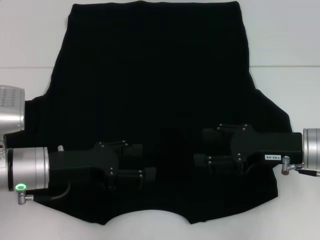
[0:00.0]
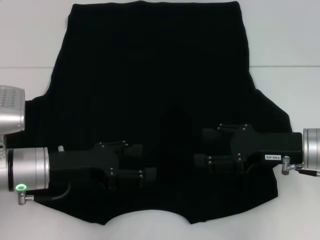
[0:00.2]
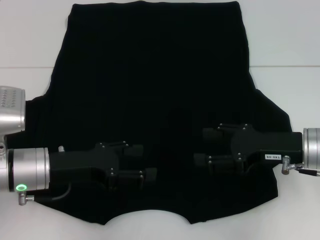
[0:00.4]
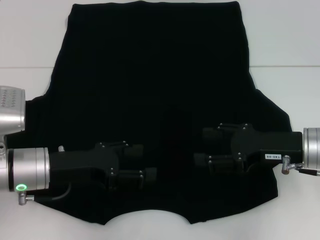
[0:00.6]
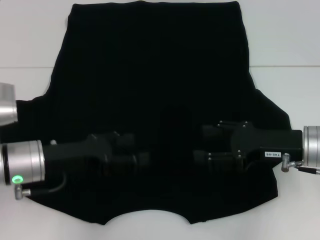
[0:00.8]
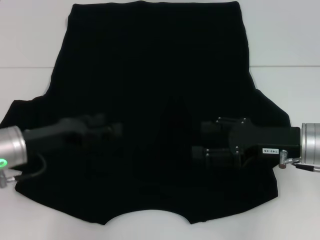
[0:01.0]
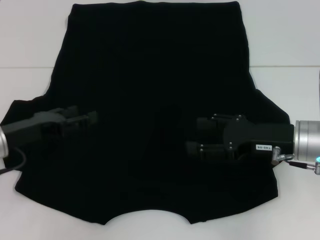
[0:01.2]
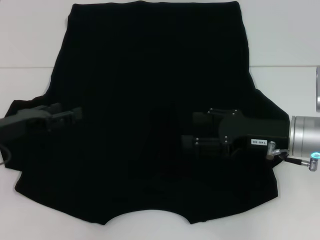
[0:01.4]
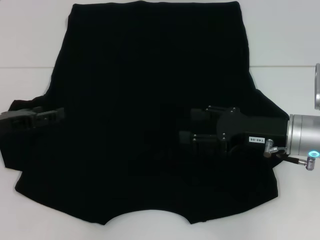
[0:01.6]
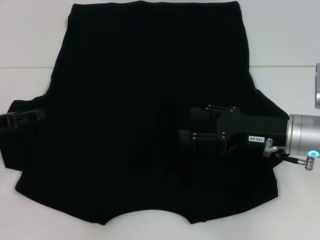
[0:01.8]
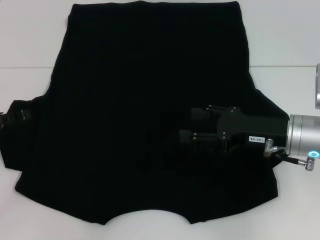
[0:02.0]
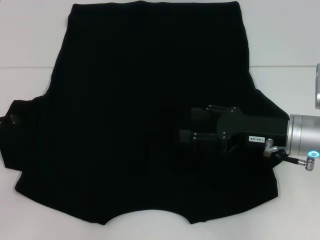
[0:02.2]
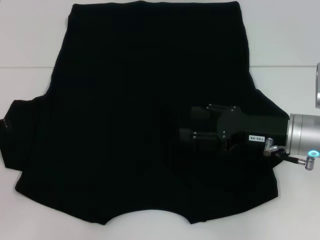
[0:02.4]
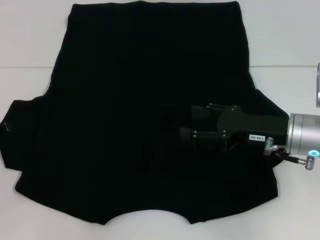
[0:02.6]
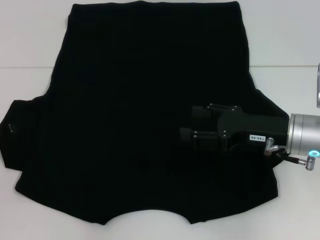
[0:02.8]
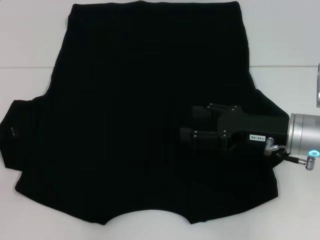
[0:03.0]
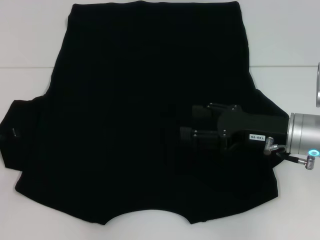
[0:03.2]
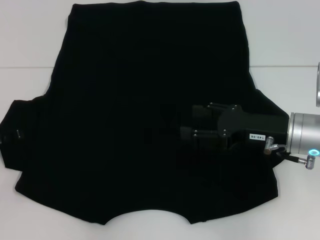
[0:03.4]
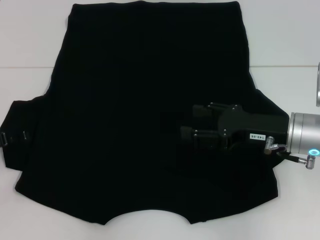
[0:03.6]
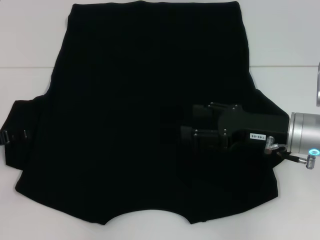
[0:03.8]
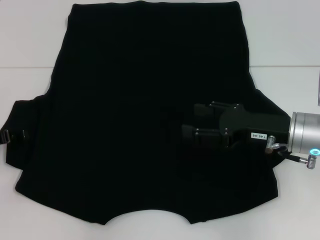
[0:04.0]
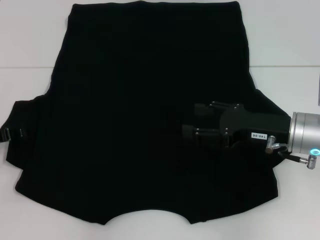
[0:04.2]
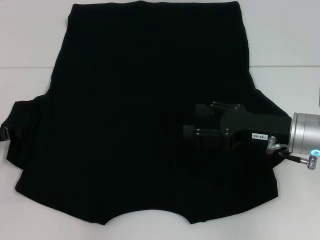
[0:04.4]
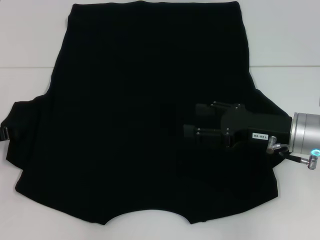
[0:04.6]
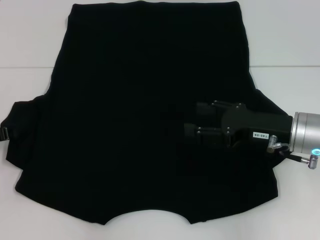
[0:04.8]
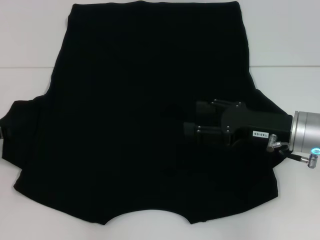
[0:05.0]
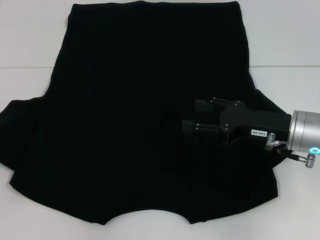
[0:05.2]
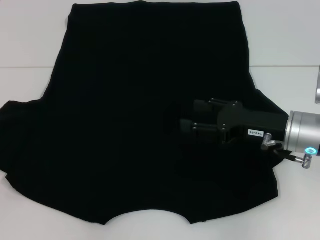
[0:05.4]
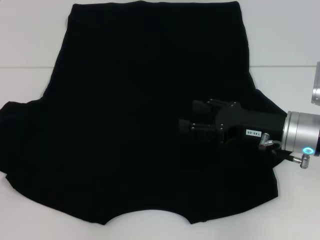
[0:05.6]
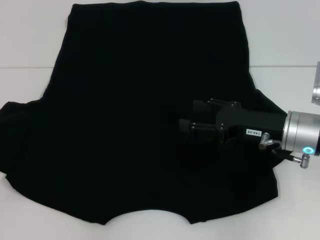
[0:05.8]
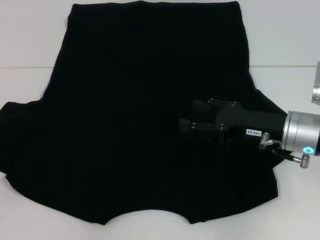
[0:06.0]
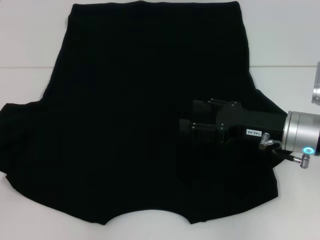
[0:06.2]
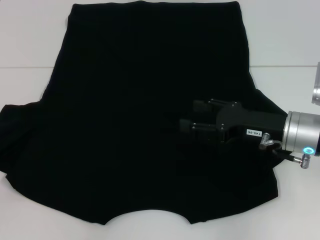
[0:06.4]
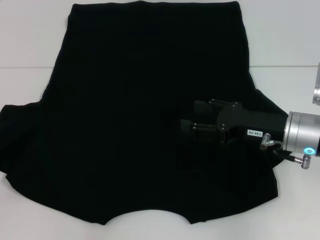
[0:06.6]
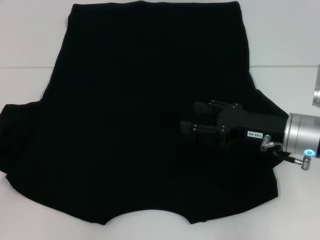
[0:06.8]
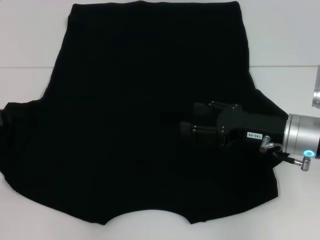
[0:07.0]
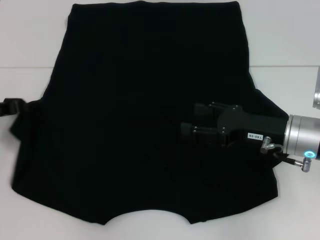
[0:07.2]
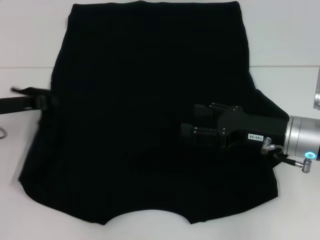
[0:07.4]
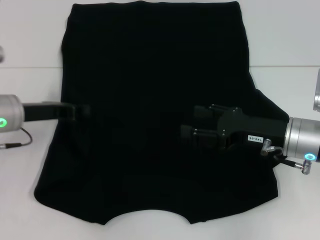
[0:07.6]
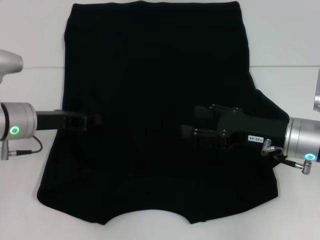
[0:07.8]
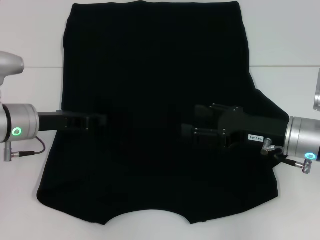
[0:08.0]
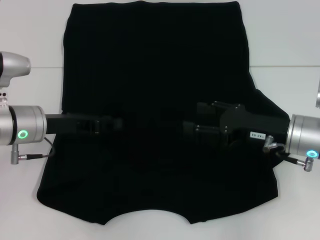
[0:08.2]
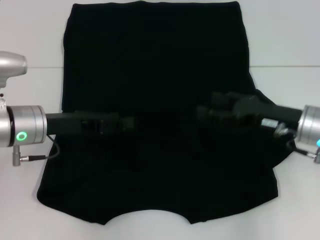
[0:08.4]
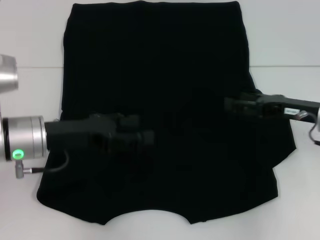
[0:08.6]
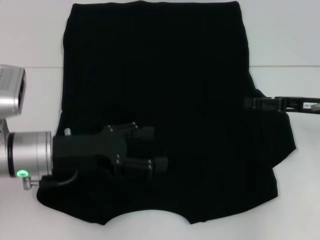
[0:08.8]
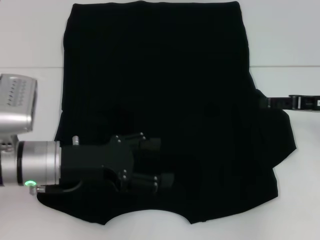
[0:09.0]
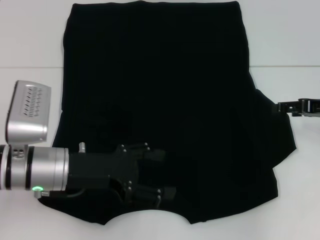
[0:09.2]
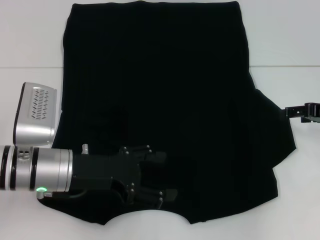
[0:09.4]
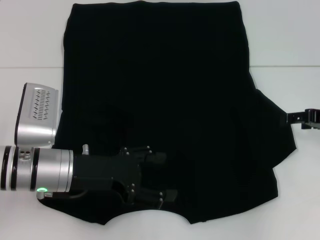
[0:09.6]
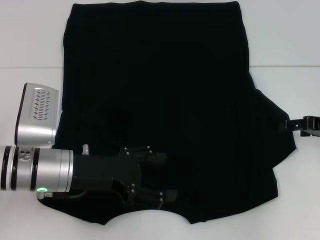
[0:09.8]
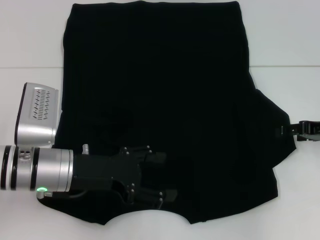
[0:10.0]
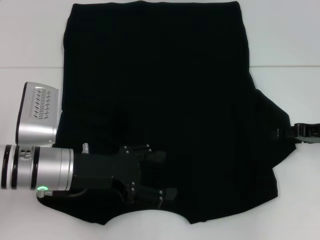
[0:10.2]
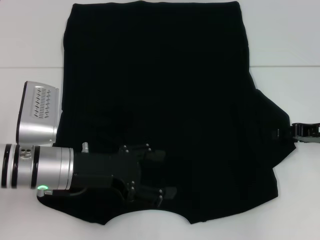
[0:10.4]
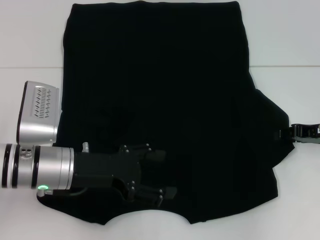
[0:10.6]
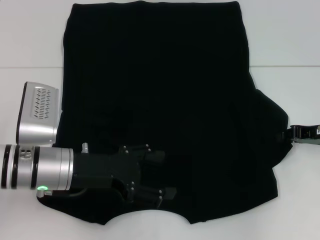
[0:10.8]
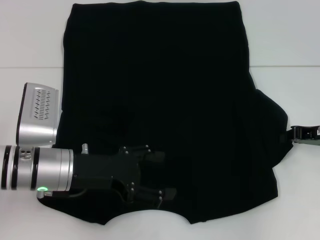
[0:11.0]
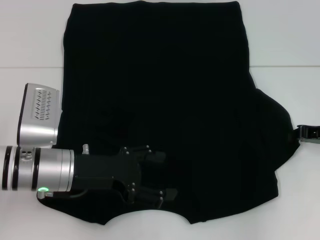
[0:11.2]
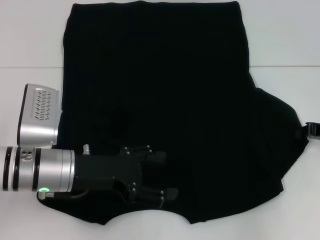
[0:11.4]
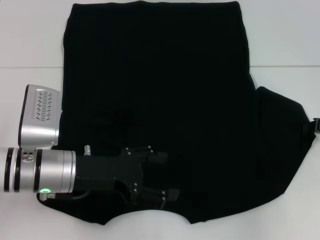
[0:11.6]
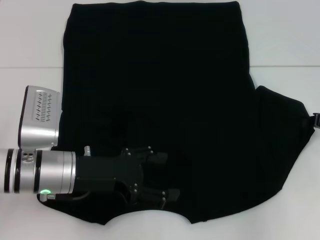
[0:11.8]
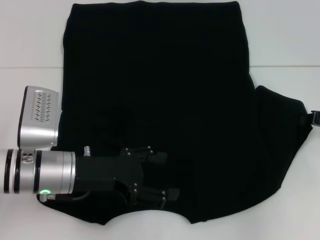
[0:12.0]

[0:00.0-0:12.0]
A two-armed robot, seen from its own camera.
Step, 0:00.0 to 0:07.8: Fold the bottom left sleeve with your left hand.
0:00.0 to 0:01.6: The left gripper moves to the left, some 10 cm.
0:03.0 to 0:04.4: The left gripper closes.
0:04.4 to 0:06.0: The left gripper closes.
0:06.0 to 0:07.6: The left gripper heads to the right, covering some 10 cm.
0:07.6 to 0:09.0: The right gripper heads to the right, covering some 10 cm. Meanwhile the left gripper heads backward and to the right, covering some 10 cm, and opens up.
0:09.0 to 0:10.4: The grippers make only small movements.
0:10.4 to 0:12.0: The right gripper closes.

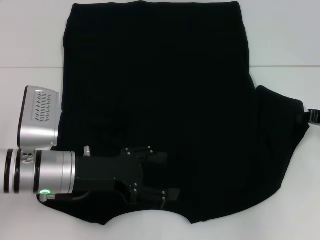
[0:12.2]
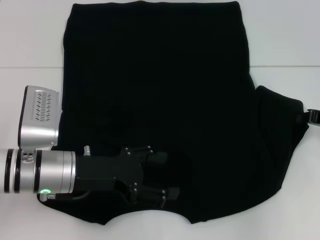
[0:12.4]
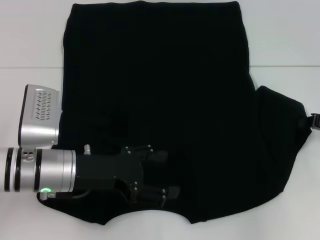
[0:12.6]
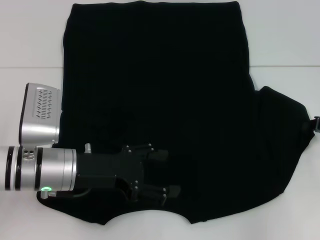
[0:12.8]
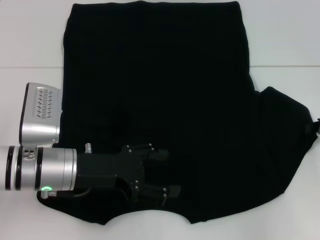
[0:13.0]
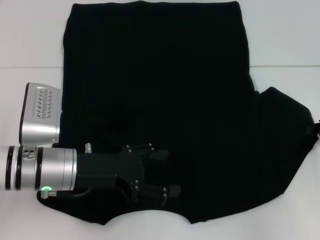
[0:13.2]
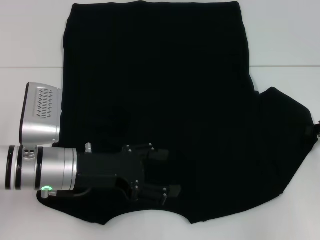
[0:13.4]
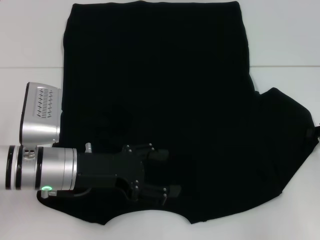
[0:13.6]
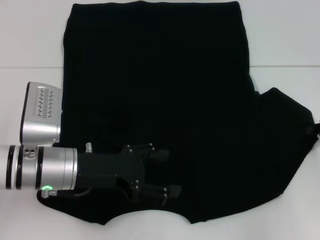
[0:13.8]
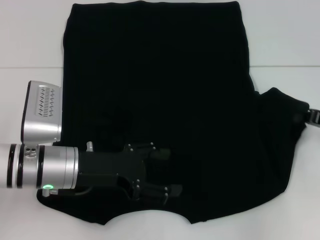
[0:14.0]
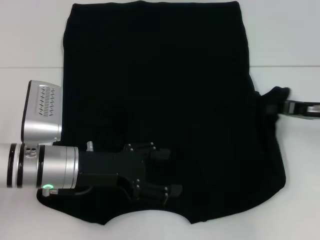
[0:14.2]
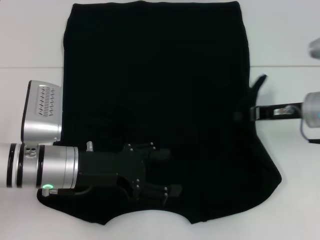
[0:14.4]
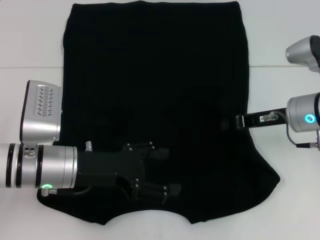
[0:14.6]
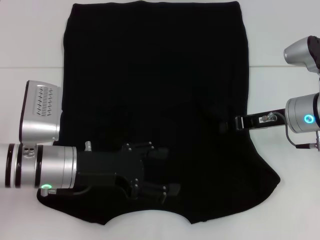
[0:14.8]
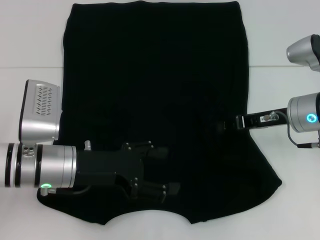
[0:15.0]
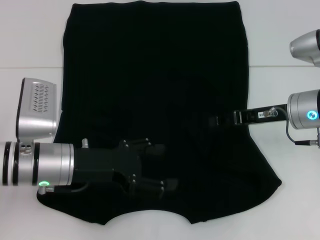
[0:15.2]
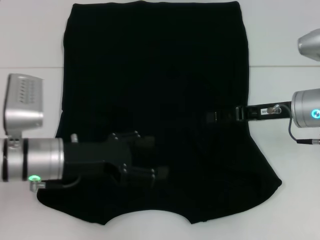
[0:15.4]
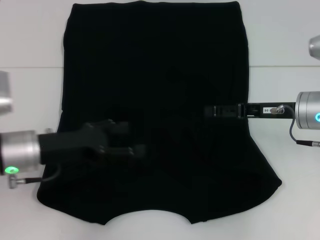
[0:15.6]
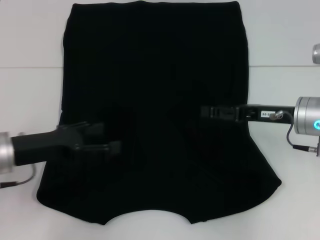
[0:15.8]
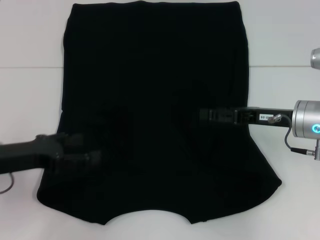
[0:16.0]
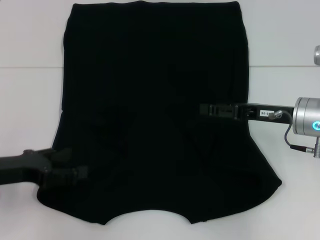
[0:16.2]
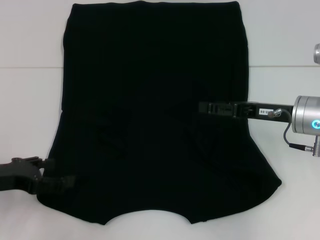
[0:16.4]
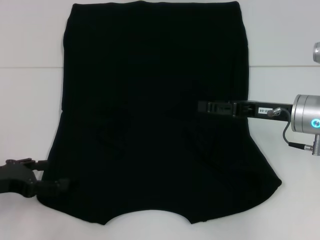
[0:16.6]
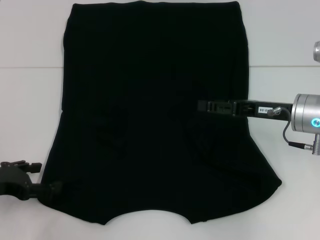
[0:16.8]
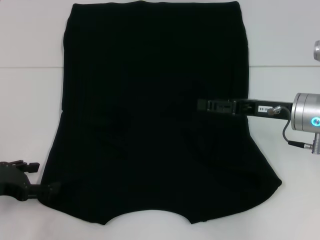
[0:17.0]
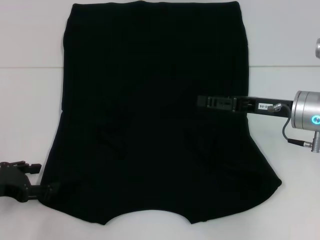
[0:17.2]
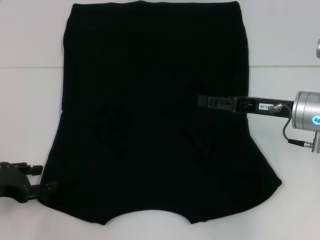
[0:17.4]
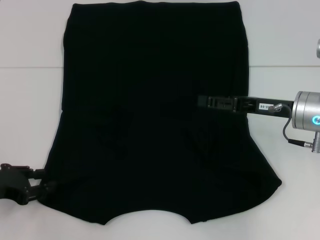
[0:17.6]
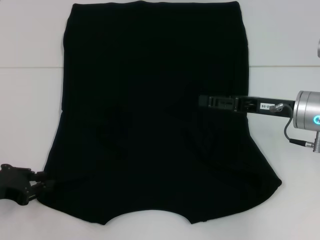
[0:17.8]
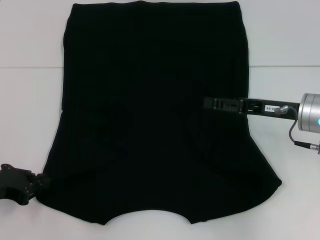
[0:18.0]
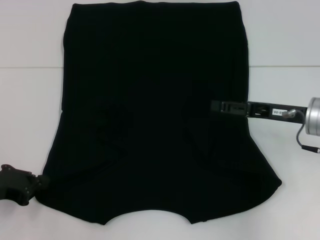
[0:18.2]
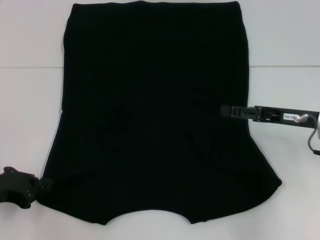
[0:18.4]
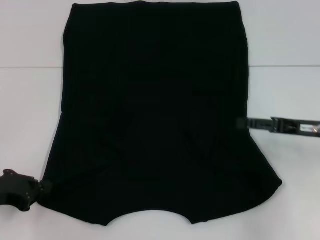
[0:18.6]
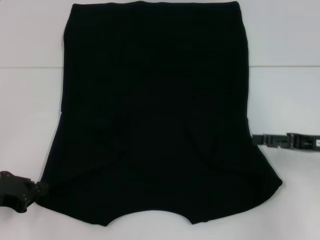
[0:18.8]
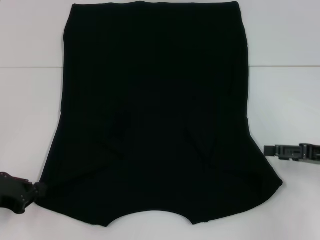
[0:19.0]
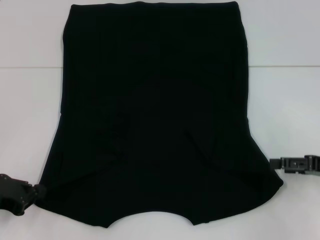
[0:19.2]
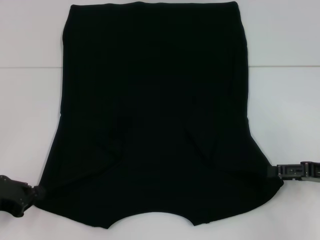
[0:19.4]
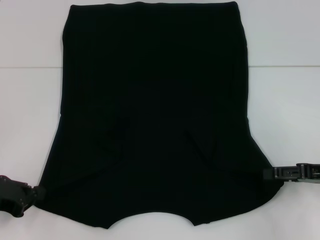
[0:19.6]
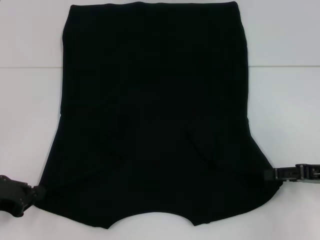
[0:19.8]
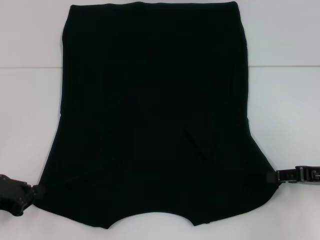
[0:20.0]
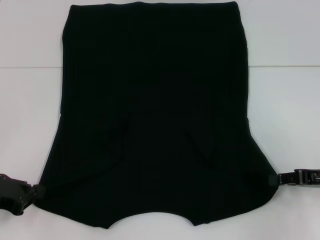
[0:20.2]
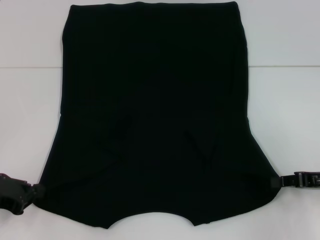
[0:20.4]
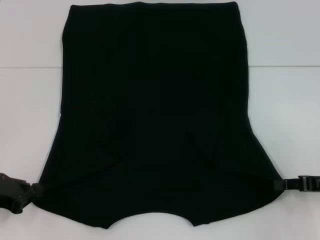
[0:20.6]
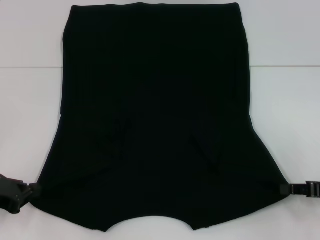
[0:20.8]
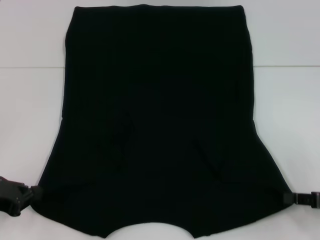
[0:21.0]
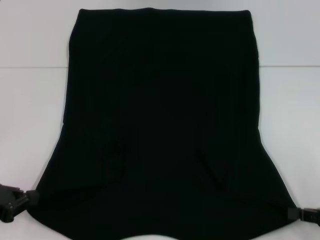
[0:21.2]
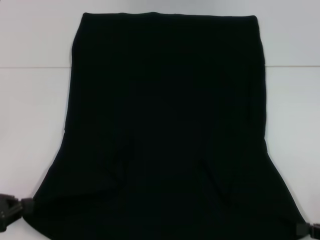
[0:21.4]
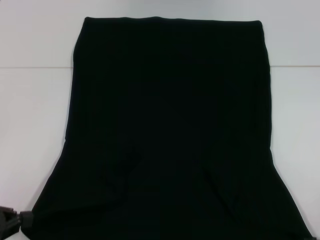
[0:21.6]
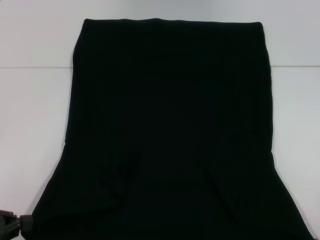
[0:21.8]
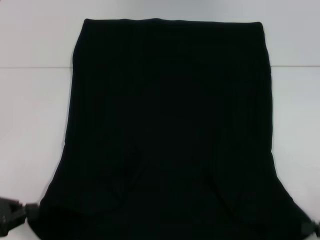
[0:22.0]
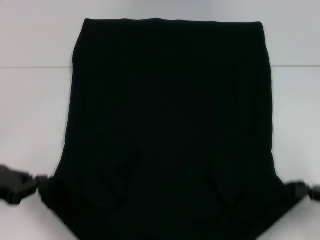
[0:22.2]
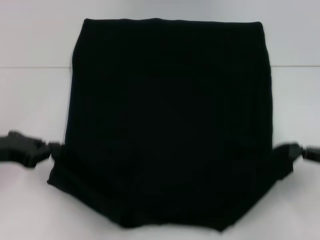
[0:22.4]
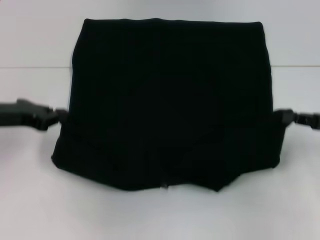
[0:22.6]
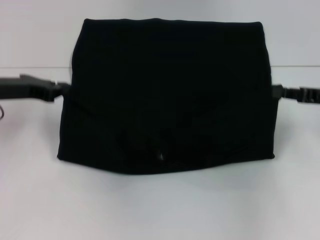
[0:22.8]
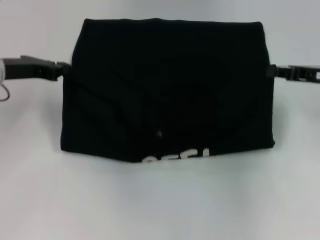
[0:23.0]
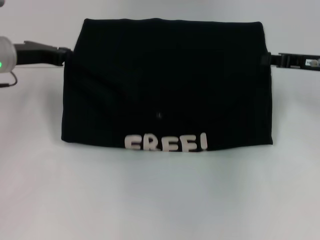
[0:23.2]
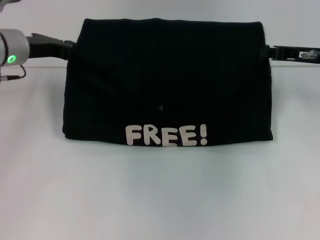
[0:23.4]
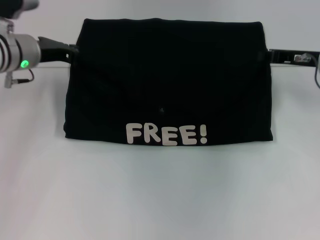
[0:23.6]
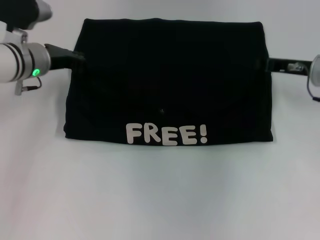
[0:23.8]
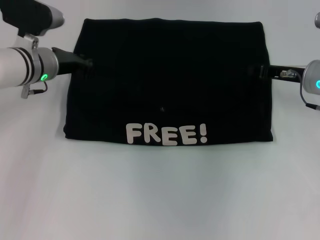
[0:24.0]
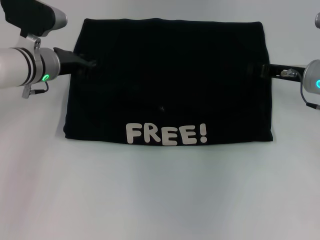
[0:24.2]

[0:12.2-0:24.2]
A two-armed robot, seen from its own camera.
Step, 0:12.2 to 0:15.6: Fold the bottom right sleeve with your right hand.
Step, 0:15.8 to 0:20.4: Grab the bottom left corner with your left hand.
Step, 0:15.8 to 0:20.4: Grab the bottom right corner with your right hand.
0:12.2 to 0:13.8: There are only small adjustments of the grippers.
0:13.8 to 0:15.2: The right gripper moves to the left, some 15 cm.
0:15.2 to 0:16.6: The left gripper is displaced to the left by roughly 15 cm. The right gripper opens up.
0:16.6 to 0:18.2: The left gripper closes.
0:18.2 to 0:19.8: The right gripper goes approximately 10 cm to the right and backward.
0:19.8 to 0:21.2: The right gripper moves backward, some 10 cm, and closes up.
0:21.2 to 0:22.6: The two grippers go about 10 cm forward and upward.
0:22.6 to 0:24.2: The left gripper travels forward and to the right by some 15 cm, while the right gripper moves forward and to the left, some 15 cm.
